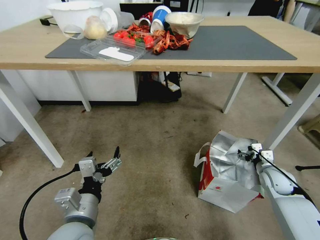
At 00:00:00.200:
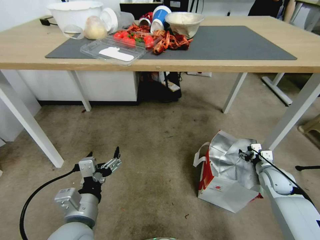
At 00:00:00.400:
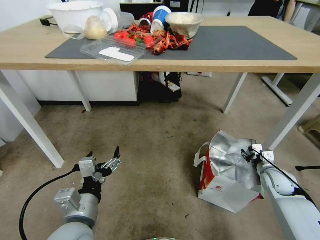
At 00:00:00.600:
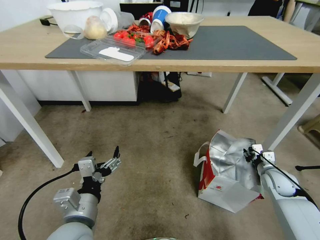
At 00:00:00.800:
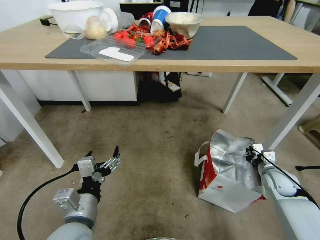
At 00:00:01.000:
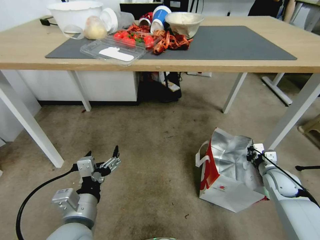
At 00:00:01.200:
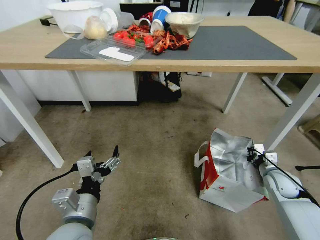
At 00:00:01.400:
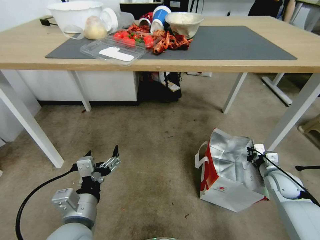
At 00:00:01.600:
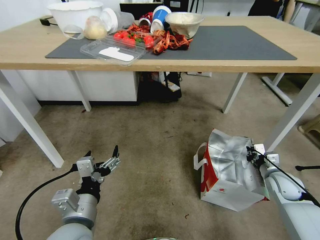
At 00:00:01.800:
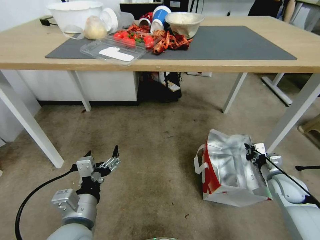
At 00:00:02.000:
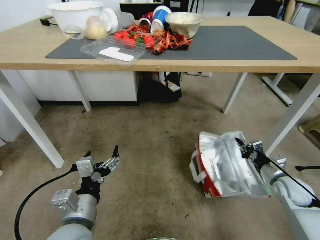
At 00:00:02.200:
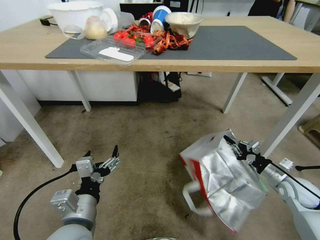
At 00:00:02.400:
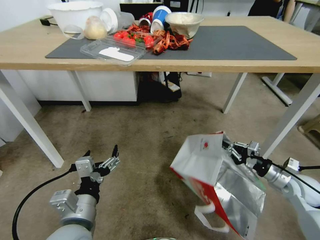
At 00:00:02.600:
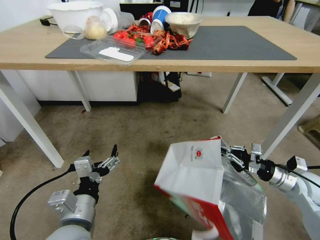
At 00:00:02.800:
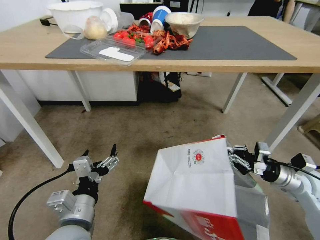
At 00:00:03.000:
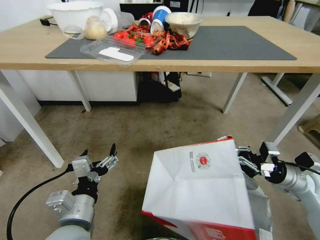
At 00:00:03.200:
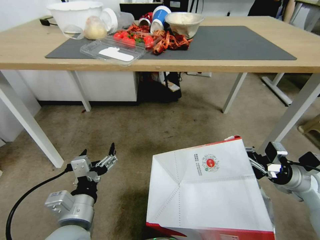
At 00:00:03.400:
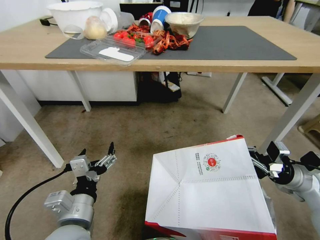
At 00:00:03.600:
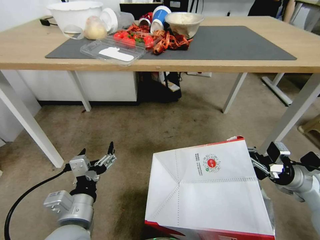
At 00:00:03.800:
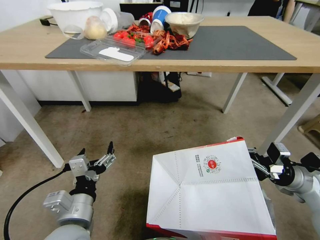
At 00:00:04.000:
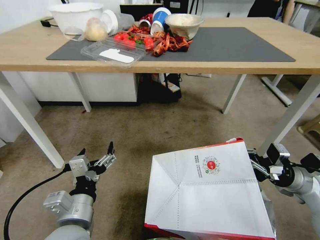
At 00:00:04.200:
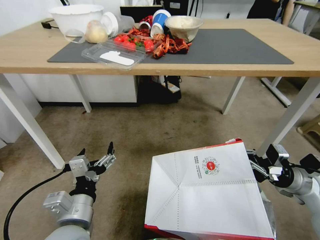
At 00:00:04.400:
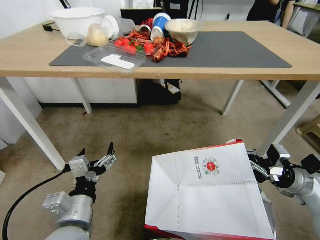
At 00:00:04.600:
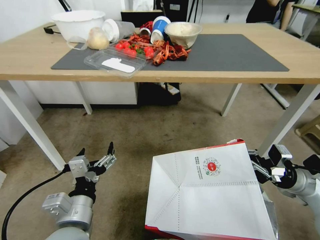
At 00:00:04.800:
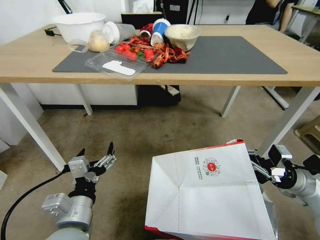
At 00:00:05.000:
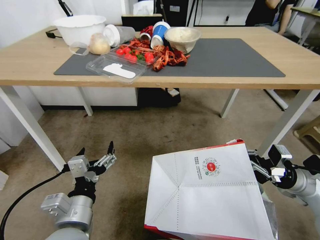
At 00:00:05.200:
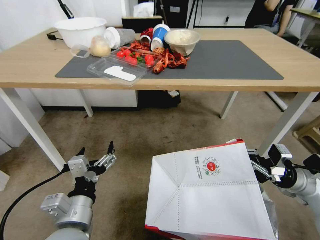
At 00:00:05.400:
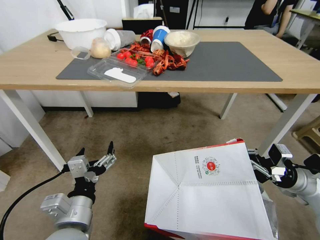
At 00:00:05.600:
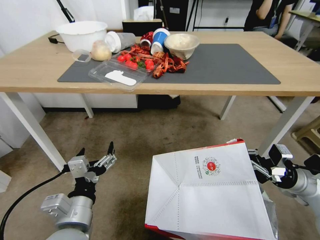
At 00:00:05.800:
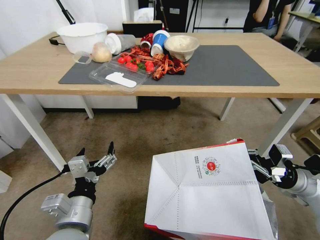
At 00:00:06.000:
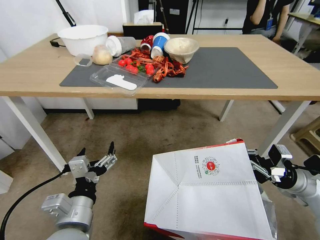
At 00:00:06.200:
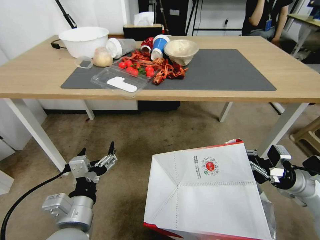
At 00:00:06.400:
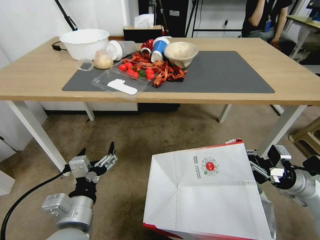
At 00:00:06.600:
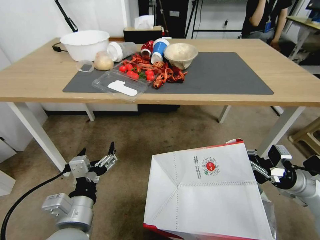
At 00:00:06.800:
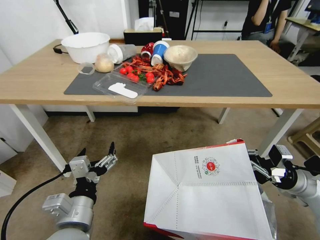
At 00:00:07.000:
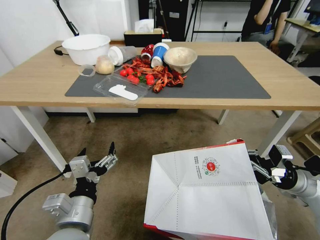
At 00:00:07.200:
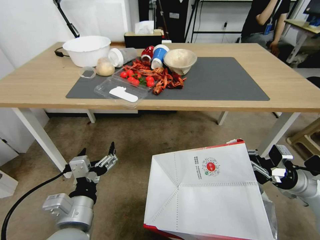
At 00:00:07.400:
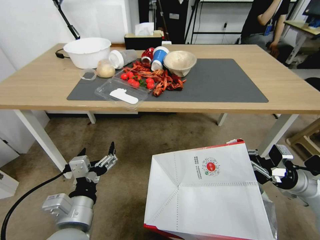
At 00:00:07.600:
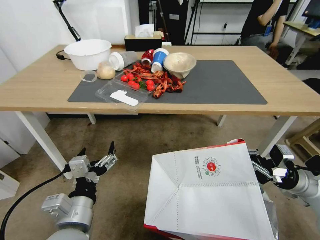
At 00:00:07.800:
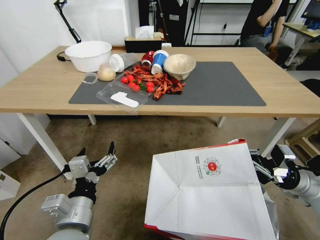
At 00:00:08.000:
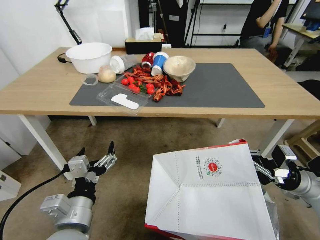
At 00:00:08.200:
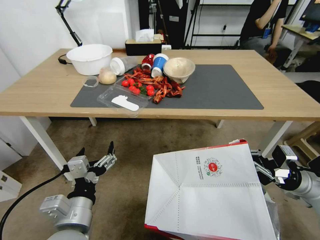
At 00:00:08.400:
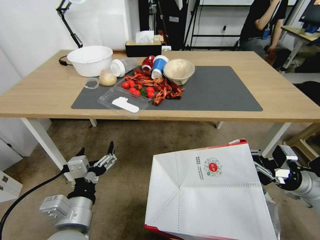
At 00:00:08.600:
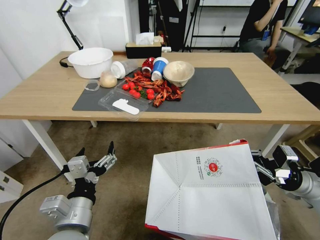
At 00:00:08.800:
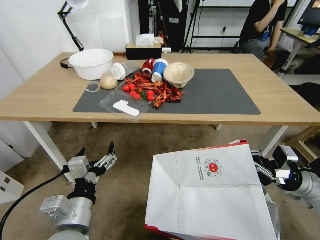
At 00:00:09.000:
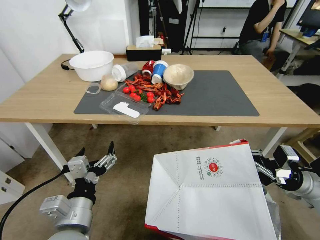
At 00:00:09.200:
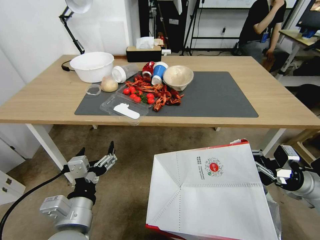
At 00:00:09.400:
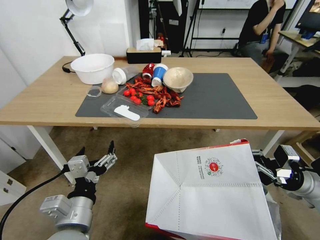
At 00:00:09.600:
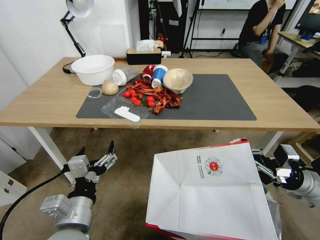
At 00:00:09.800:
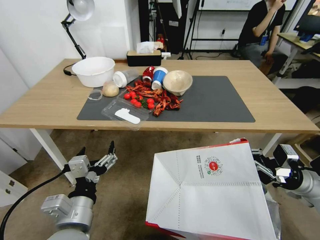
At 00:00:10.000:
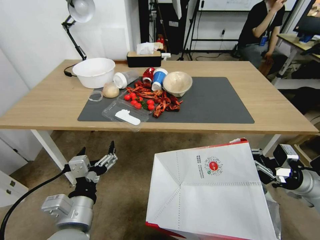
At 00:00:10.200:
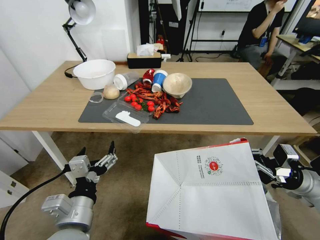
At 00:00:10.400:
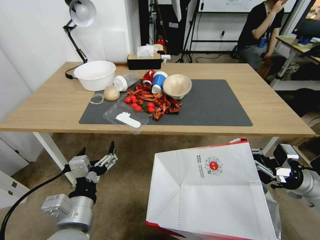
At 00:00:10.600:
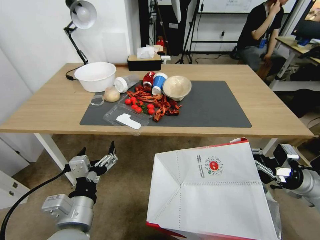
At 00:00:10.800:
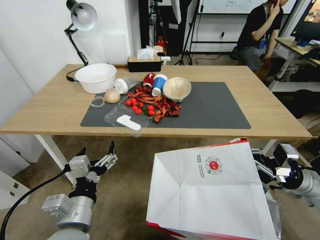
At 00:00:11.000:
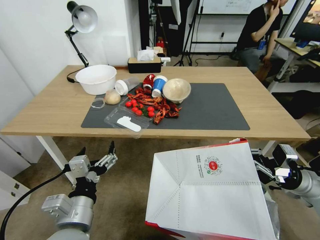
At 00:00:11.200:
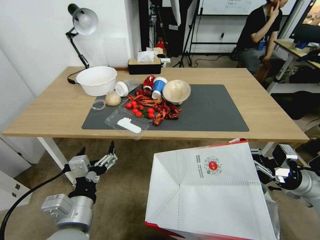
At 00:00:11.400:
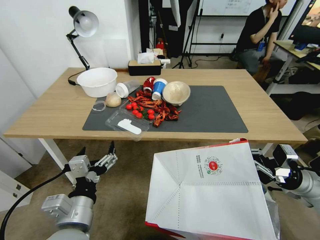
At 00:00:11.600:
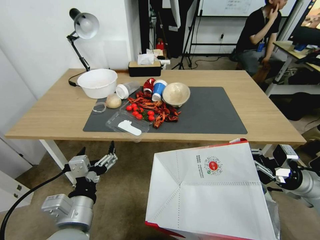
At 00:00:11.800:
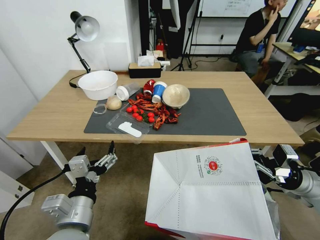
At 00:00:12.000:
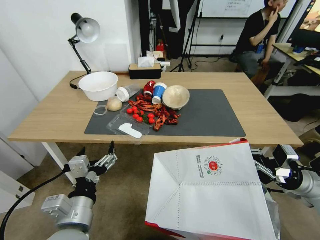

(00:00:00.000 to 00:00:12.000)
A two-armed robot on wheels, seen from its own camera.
Task of the whole recording: Pick up the food delivery bag from the floor and place it on the table.
00:00:00.000 - 00:00:01.600: The right gripper closes its fingers.
00:00:01.600 - 00:00:03.000: The right gripper shifts approximately 10 cm upward.

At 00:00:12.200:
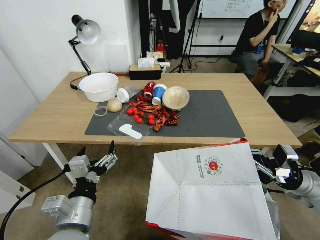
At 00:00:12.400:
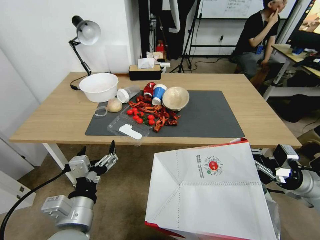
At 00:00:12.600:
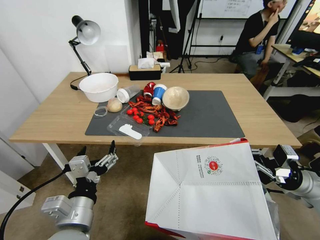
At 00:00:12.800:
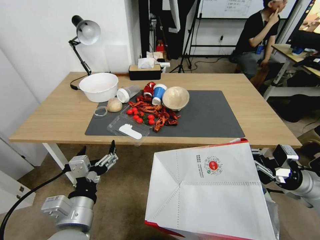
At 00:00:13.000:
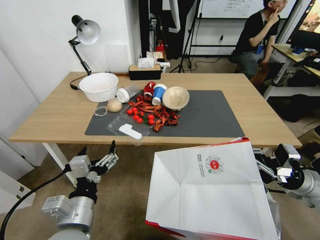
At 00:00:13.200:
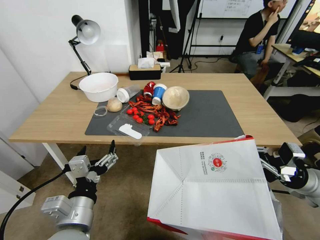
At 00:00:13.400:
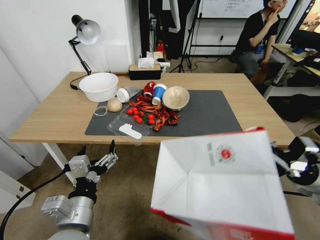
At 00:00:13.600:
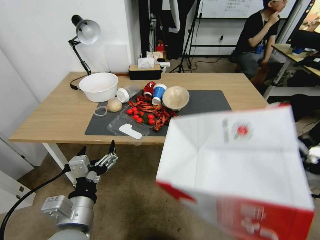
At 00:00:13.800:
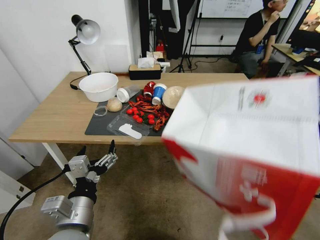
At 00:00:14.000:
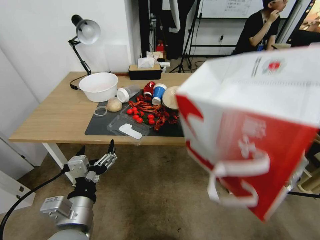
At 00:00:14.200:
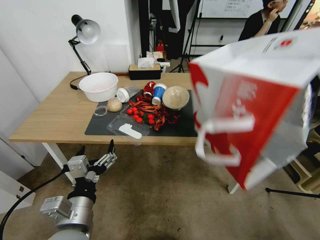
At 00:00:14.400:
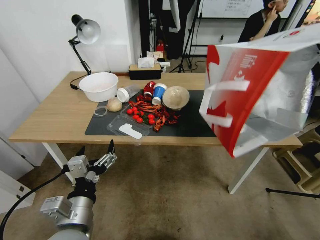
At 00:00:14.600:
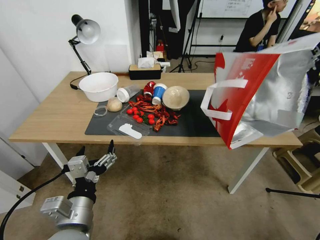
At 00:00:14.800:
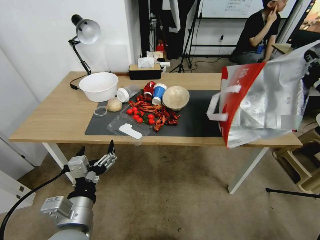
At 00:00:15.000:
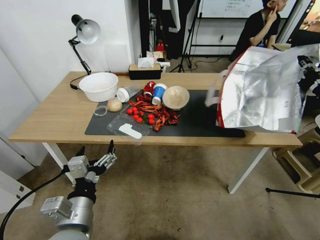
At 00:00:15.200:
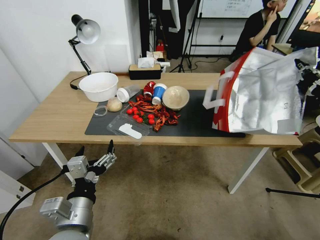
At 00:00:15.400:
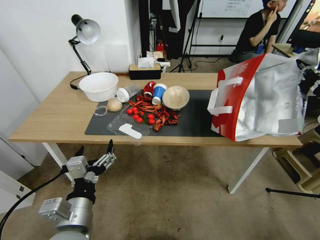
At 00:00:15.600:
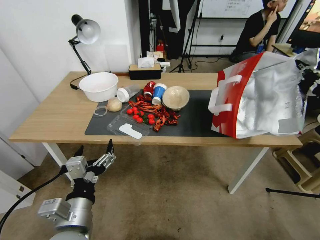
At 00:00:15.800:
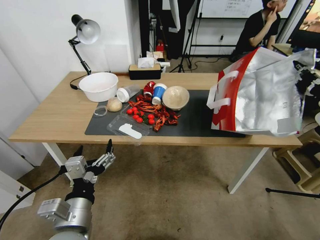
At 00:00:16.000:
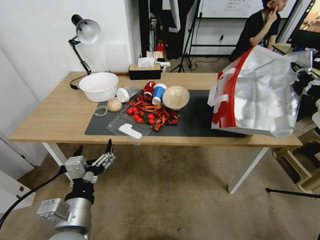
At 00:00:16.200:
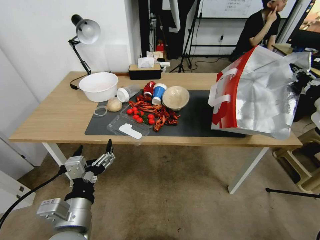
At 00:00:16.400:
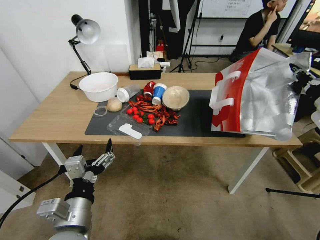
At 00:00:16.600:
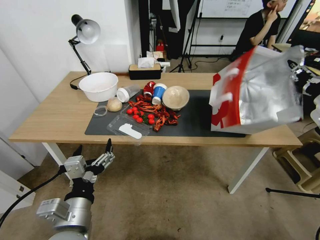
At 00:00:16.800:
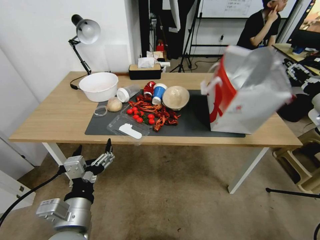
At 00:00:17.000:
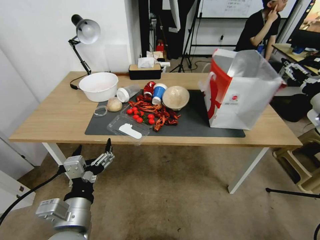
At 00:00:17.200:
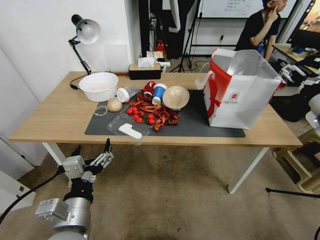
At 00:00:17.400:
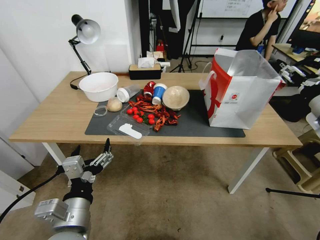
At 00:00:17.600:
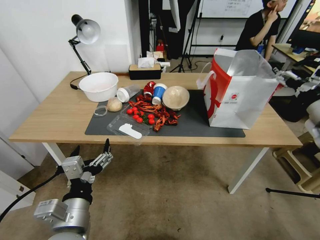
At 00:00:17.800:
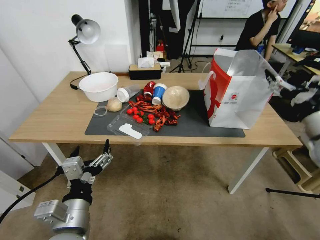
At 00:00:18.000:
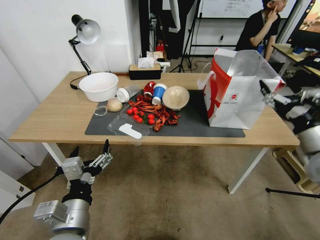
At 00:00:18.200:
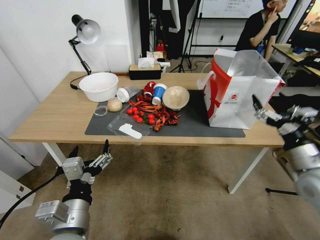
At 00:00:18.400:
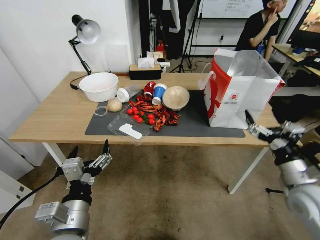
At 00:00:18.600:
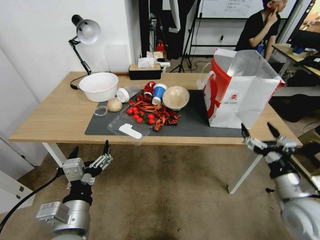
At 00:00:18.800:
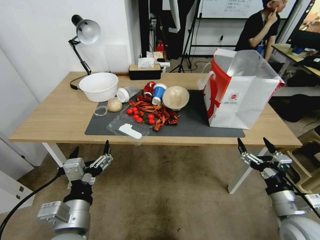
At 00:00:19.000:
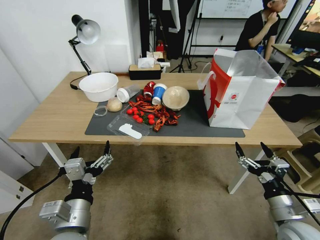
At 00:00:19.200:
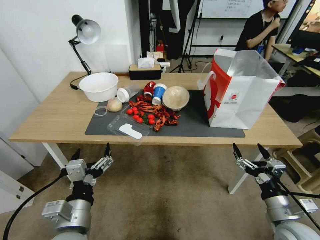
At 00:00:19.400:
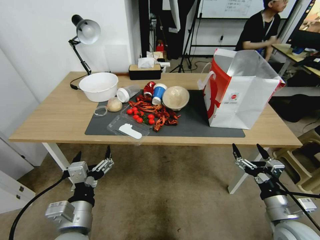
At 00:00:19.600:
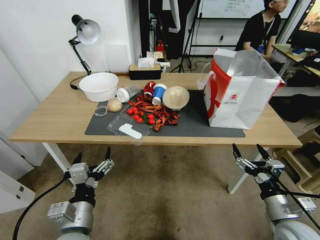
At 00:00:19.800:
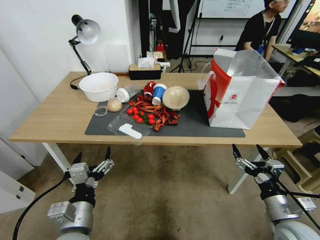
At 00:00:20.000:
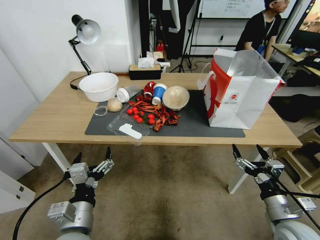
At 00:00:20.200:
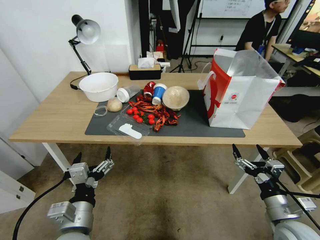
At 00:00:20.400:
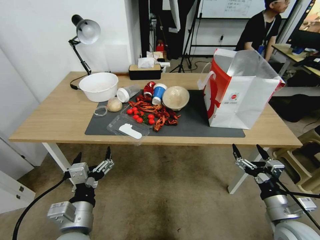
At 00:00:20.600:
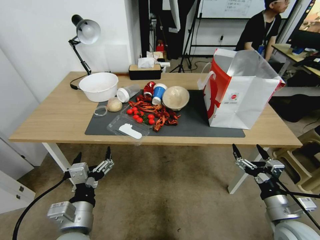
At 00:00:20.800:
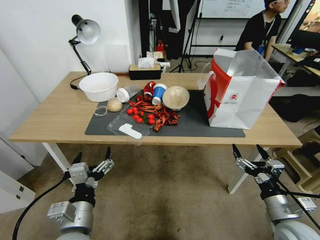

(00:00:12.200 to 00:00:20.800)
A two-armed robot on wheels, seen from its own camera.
Task of the whole recording: Pick up the food delivery bag from the floor and place it on the table.
00:00:12.200 - 00:00:13.600: The right gripper shifts roughly 5 cm upward.
00:00:13.600 - 00:00:15.000: The right gripper is displaced upward and forward by roughly 10 cm.
00:00:15.000 - 00:00:16.600: The grippers stay close to where they were, moving slightly.
00:00:16.600 - 00:00:18.000: The right gripper shifts by about 5 cm, and opens its fingers.
00:00:18.000 - 00:00:19.400: The right gripper heads downward, backward and to the left, covering roughly 30 cm.
00:00:19.400 - 00:00:20.800: The grippers make only small movements.
